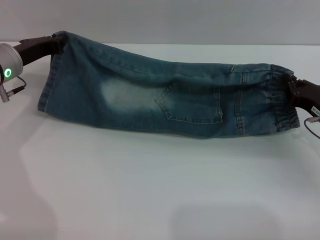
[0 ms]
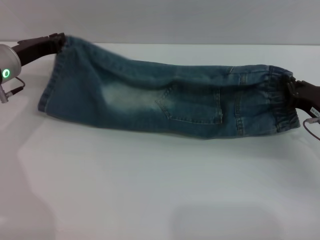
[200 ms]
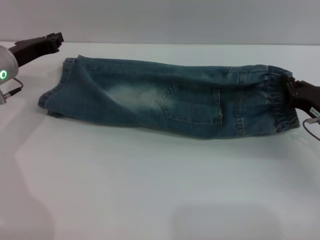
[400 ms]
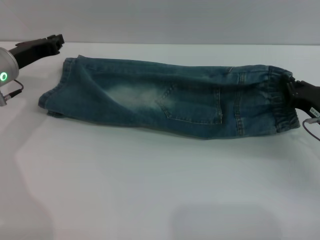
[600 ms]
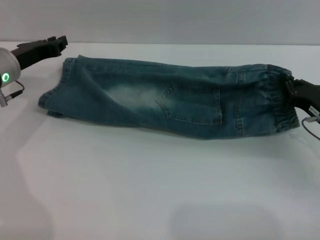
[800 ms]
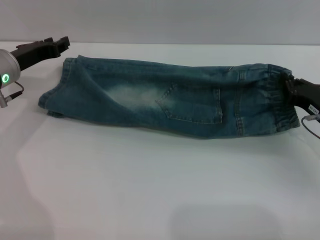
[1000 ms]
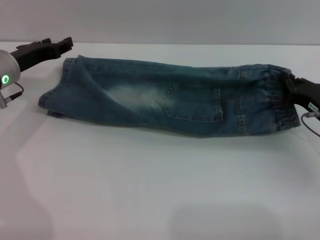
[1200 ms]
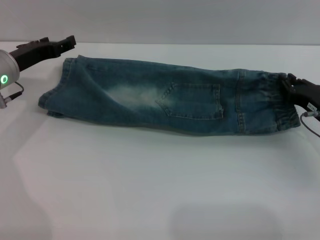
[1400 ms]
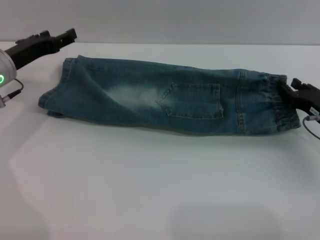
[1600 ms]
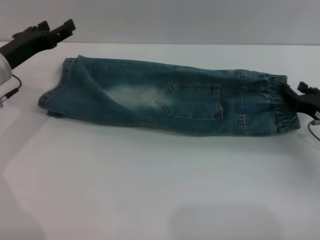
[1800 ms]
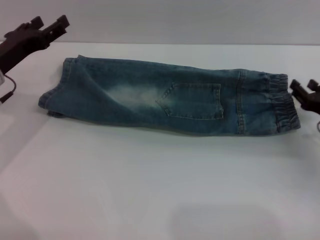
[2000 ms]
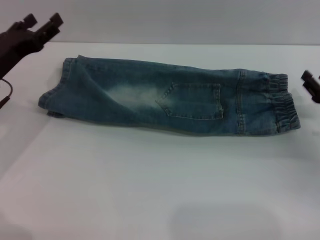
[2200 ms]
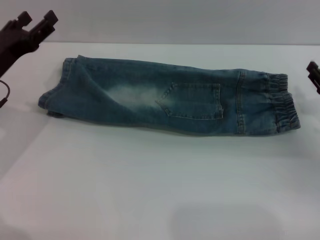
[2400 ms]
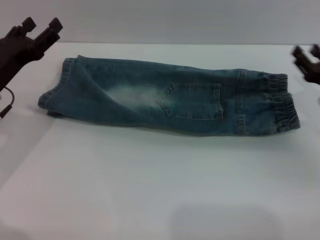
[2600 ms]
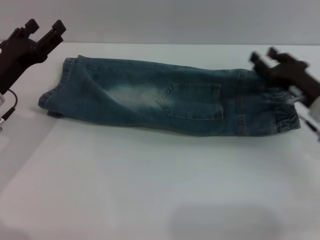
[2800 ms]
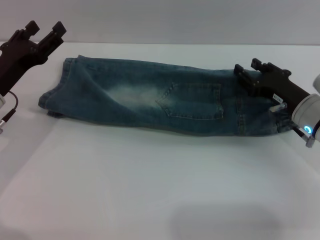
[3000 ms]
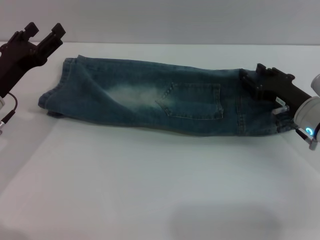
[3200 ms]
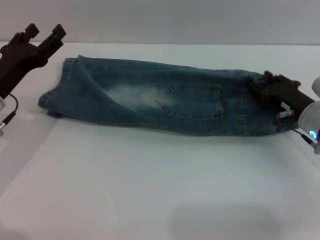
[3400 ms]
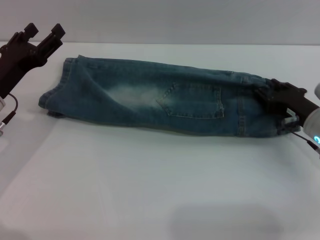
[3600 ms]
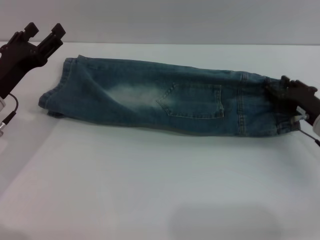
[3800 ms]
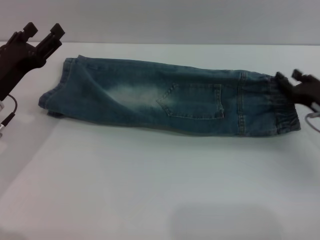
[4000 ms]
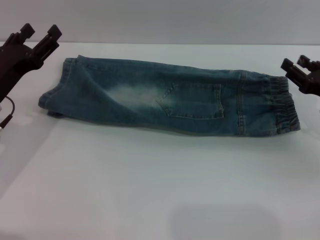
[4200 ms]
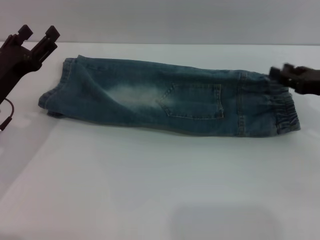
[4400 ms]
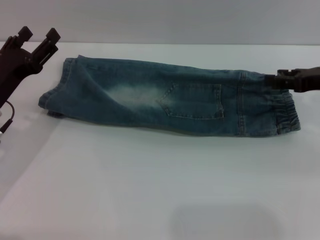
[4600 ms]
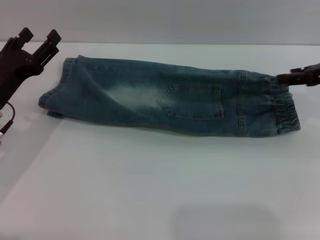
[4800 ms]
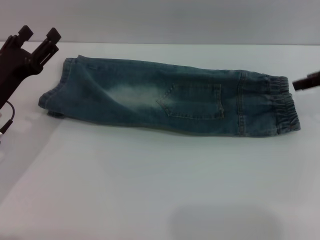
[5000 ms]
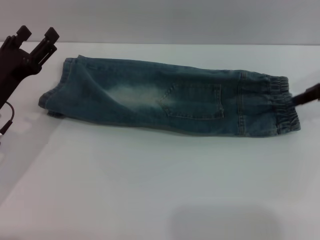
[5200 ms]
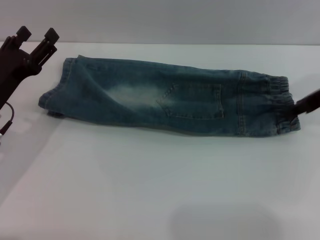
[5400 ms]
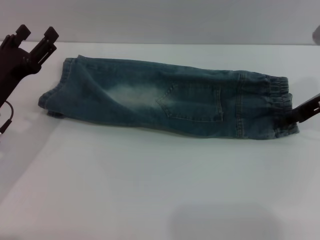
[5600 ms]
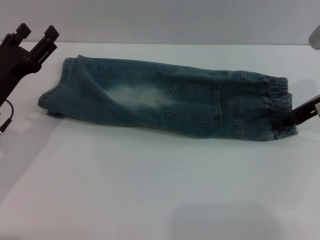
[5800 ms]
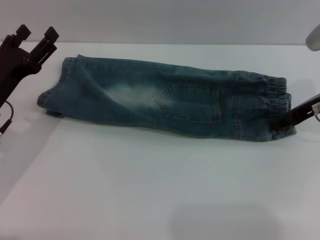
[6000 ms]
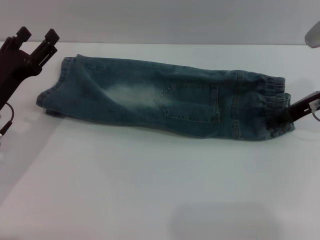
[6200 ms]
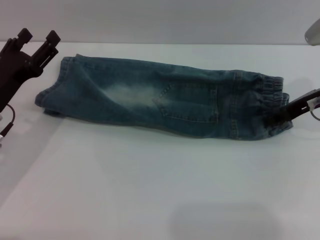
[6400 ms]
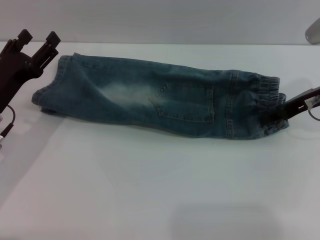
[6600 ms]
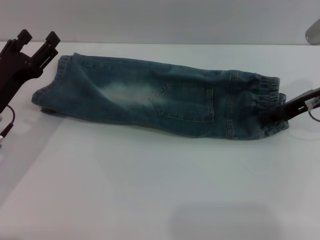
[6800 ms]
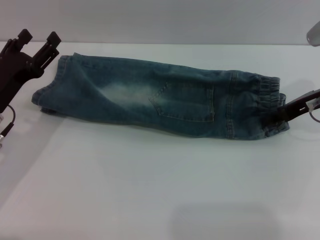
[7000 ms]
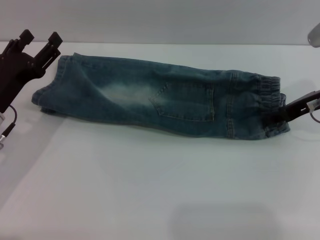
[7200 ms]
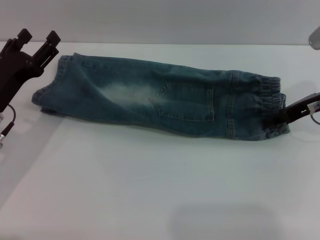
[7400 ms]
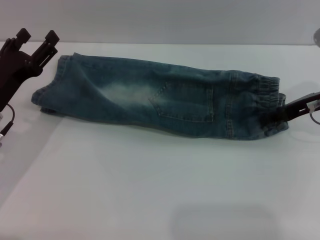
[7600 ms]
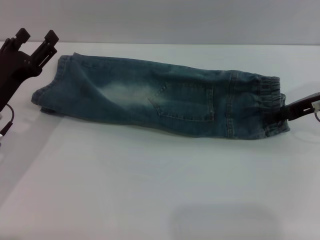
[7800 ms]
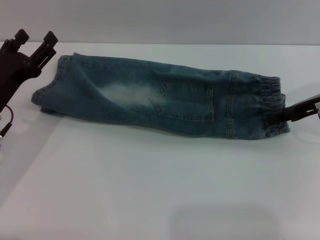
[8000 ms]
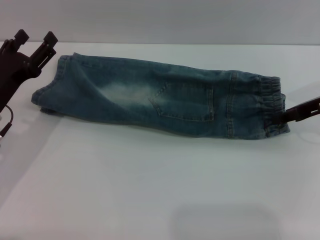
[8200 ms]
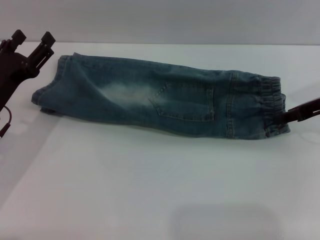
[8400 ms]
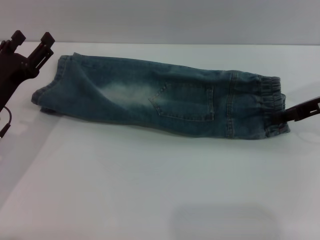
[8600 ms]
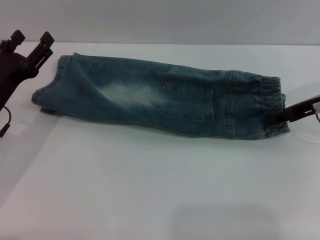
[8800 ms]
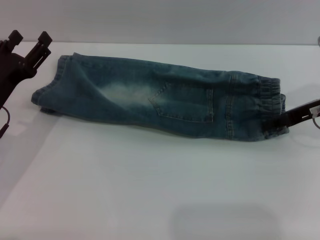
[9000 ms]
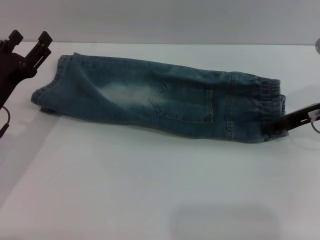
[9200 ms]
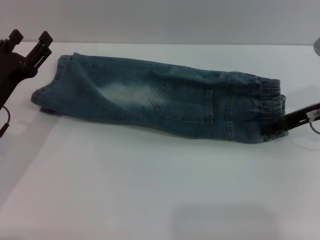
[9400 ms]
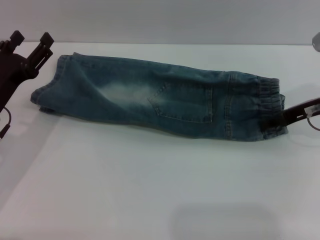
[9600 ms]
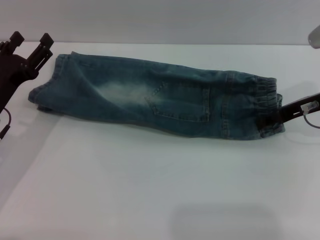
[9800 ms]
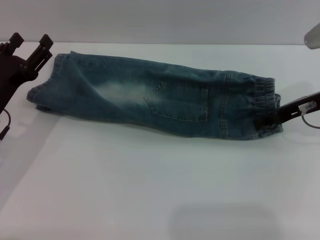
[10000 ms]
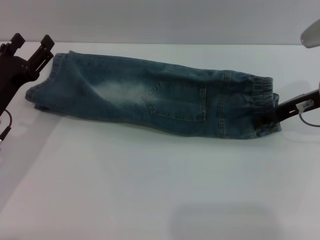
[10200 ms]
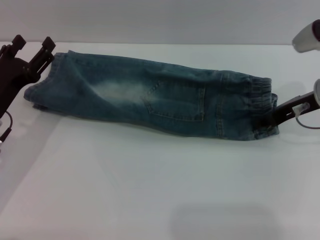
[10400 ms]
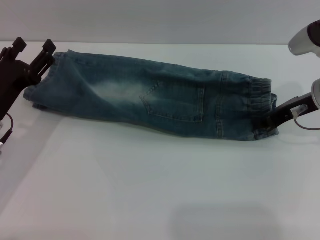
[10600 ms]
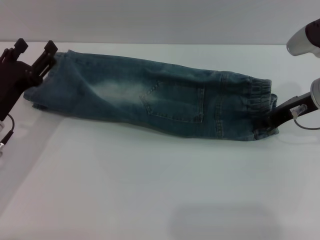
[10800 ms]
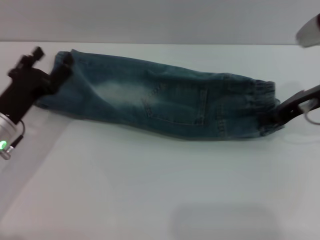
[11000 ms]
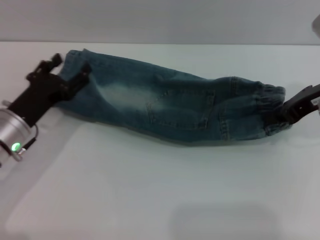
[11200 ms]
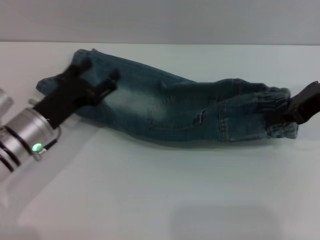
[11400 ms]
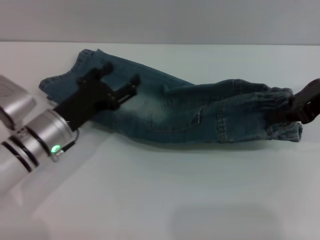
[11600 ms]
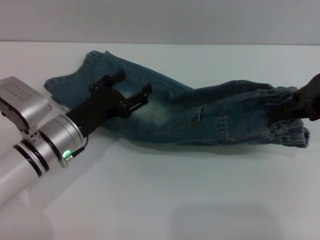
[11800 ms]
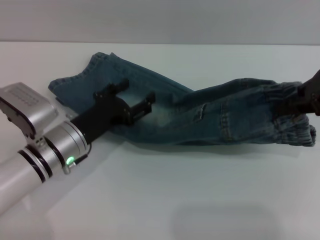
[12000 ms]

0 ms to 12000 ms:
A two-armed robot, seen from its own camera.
0 ms to 1600 ms: The left gripper opens up.
1600 ms to 3000 ms: The right gripper heads to the left, covering approximately 5 cm, and opens, while the left gripper shifts approximately 5 cm backward.
3000 ms to 4400 ms: The right gripper is displaced to the right and upward by about 10 cm.
4400 ms to 6000 ms: The right gripper shifts by roughly 5 cm.
6000 ms to 10400 ms: The grippers move only a little.
10400 ms to 12000 ms: The right gripper goes some 15 cm upward and backward, and closes its fingers, while the left gripper goes some 10 cm to the right.

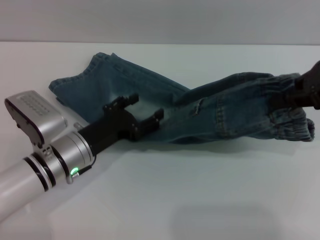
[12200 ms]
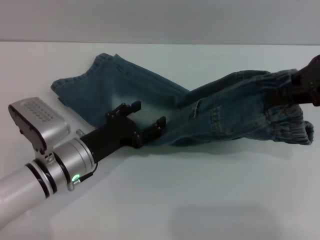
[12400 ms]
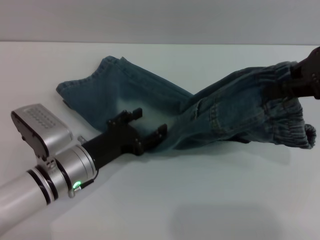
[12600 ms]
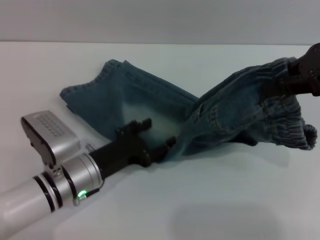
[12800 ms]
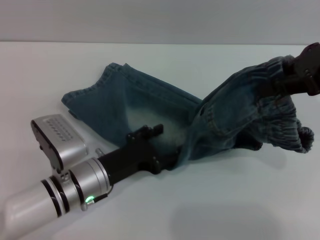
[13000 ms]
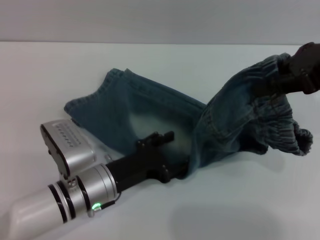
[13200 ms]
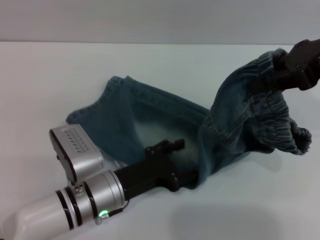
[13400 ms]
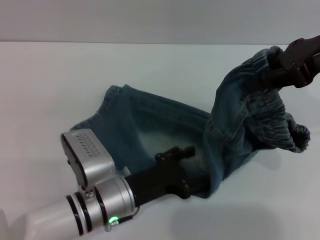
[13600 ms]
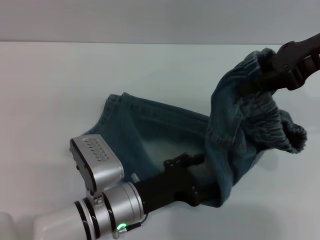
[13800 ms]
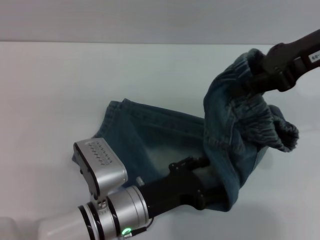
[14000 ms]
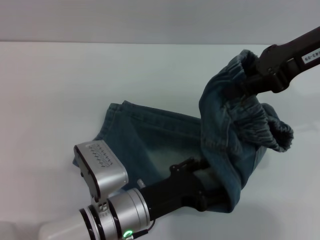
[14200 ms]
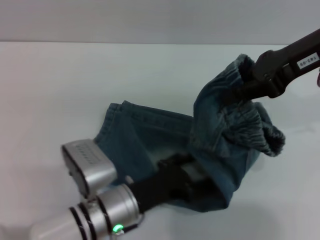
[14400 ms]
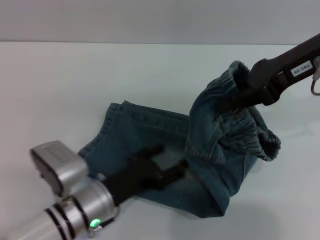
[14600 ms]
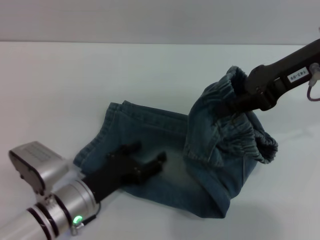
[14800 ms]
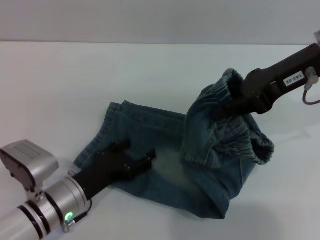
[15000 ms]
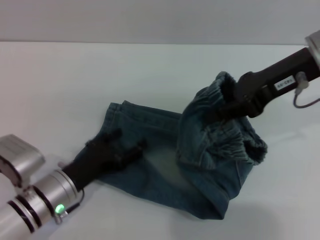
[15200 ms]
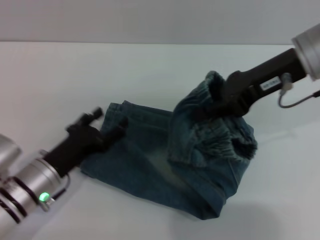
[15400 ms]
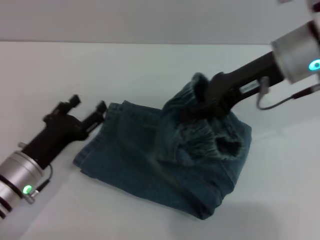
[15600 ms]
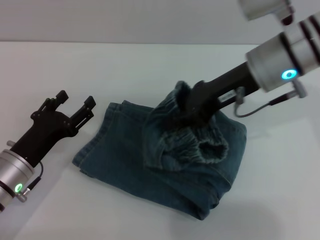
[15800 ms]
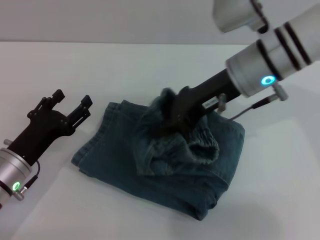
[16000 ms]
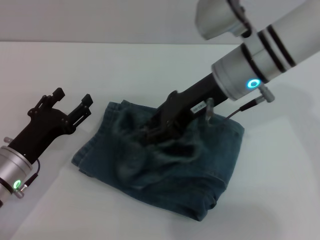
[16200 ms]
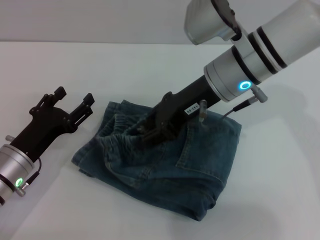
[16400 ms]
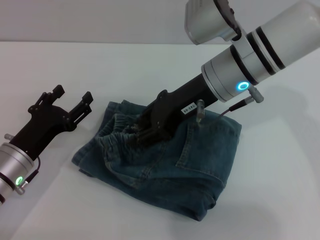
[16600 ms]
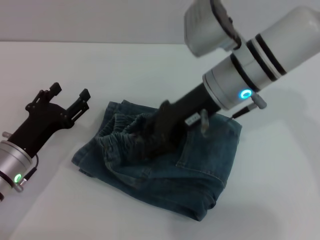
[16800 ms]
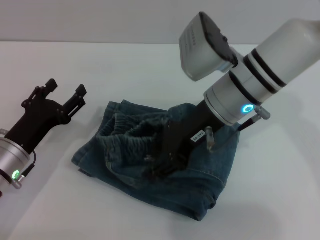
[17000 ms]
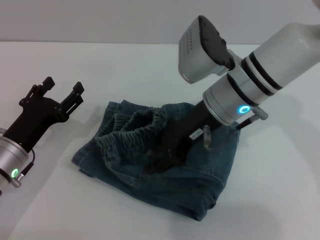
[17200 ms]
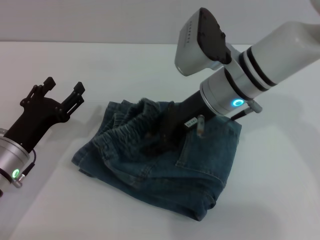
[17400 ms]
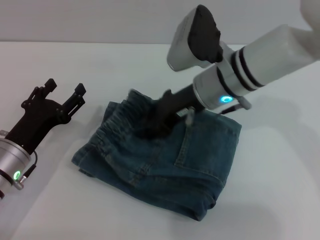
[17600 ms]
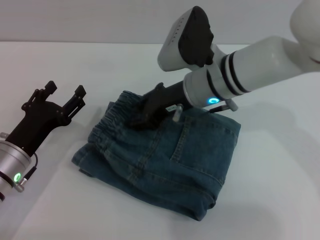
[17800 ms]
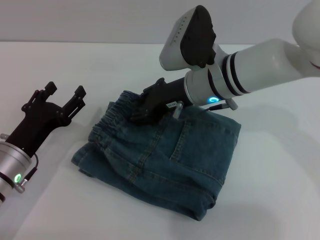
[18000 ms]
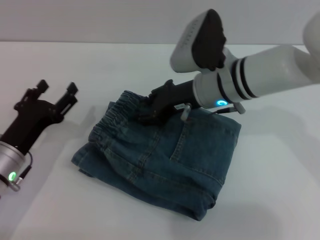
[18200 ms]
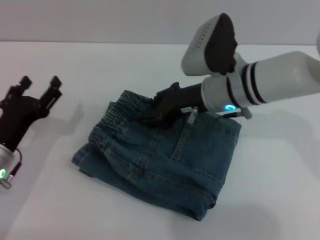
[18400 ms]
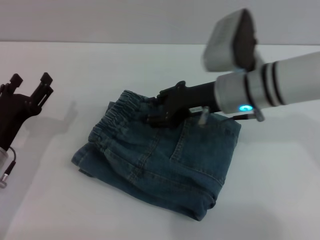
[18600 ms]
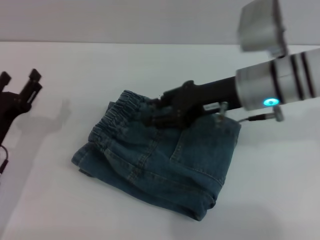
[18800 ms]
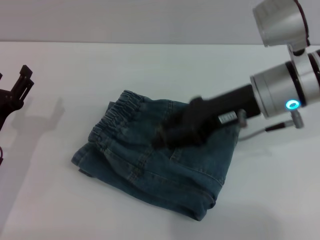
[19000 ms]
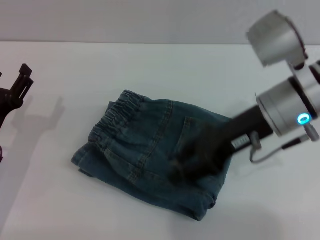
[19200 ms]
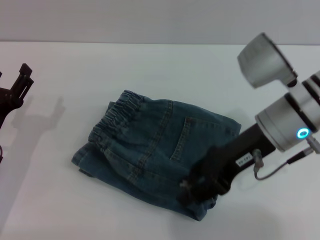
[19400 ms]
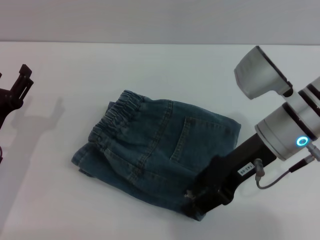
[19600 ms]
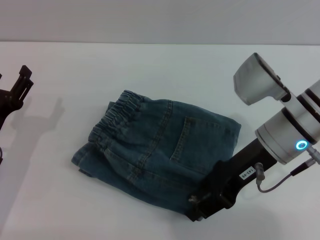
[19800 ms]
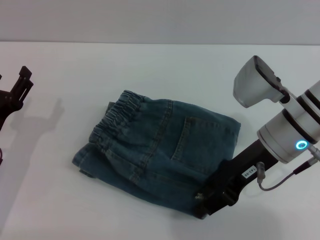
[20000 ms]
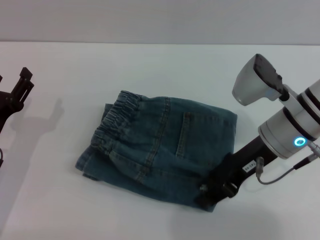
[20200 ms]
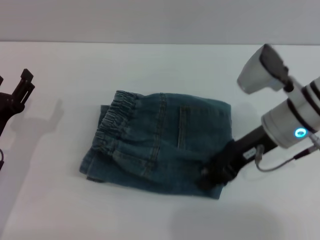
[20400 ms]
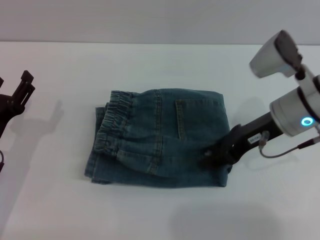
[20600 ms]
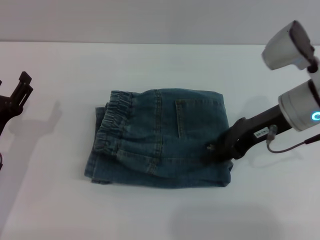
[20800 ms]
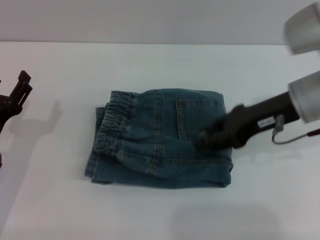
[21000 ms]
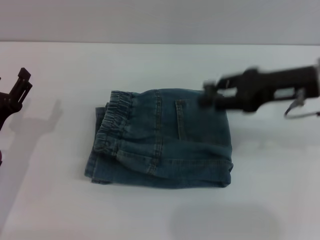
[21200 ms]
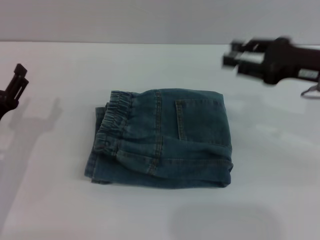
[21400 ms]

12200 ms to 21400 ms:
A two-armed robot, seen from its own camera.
Step, 12200 ms to 18000 ms: Fold the pants from right to left with the right gripper.
12200 ms to 13800 ms: The left gripper goes approximately 10 cm to the right and backward.
13800 ms to 15200 ms: The left gripper travels to the left by approximately 10 cm. Meanwhile the right gripper changes place by approximately 5 cm.
15200 ms to 16800 ms: The right gripper shifts some 10 cm to the left and downward, and opens. The left gripper moves to the left, approximately 5 cm.
16800 ms to 18400 ms: The right gripper is displaced downward by approximately 5 cm.
18400 ms to 19800 ms: The right gripper travels backward and to the right by approximately 10 cm.
19800 ms to 21400 ms: The right gripper moves to the right, about 10 cm.
